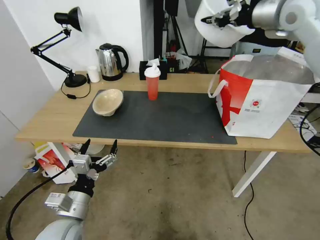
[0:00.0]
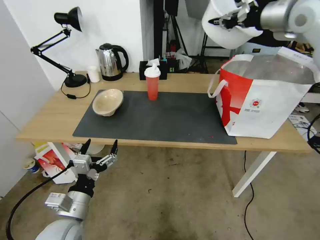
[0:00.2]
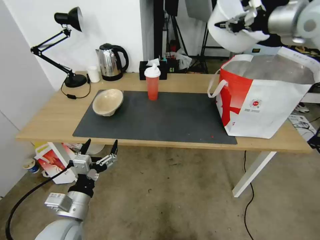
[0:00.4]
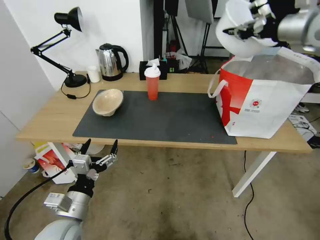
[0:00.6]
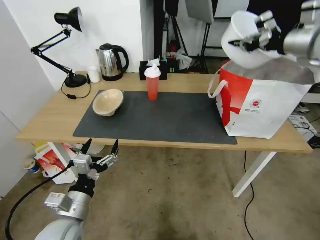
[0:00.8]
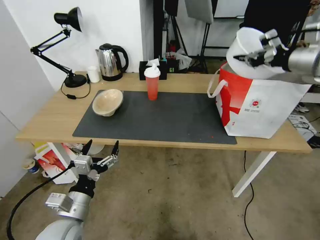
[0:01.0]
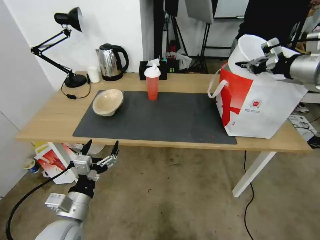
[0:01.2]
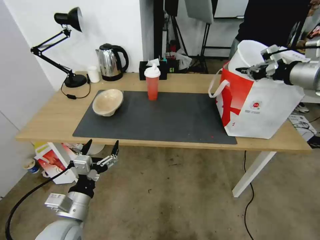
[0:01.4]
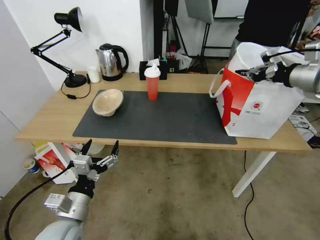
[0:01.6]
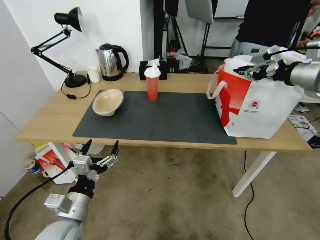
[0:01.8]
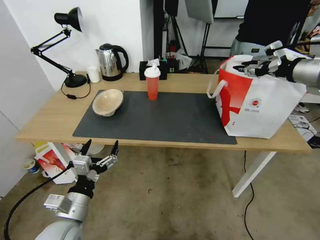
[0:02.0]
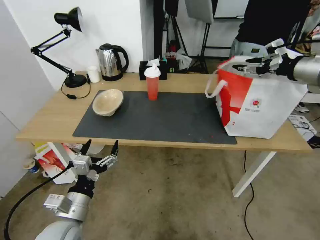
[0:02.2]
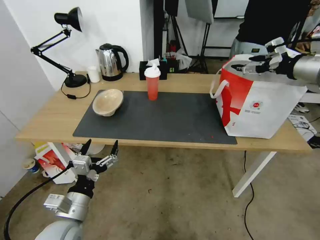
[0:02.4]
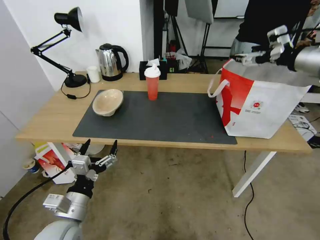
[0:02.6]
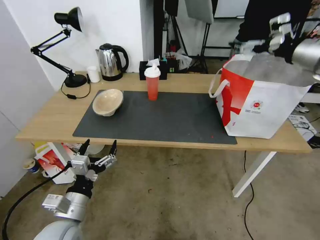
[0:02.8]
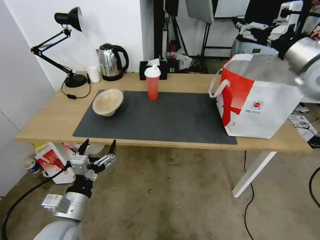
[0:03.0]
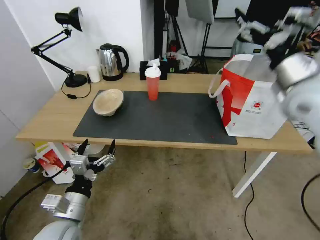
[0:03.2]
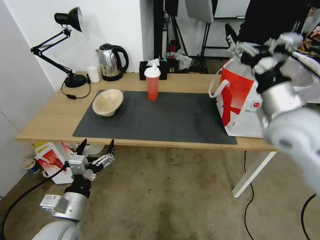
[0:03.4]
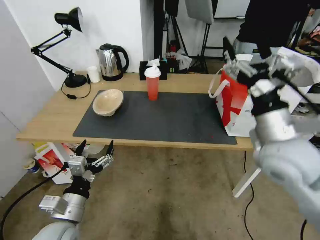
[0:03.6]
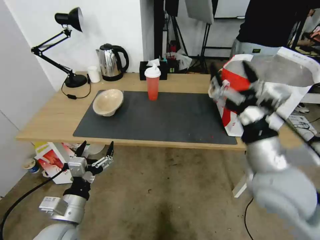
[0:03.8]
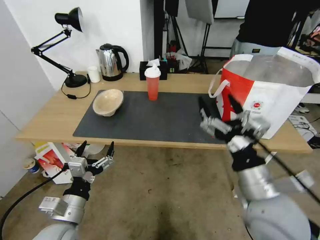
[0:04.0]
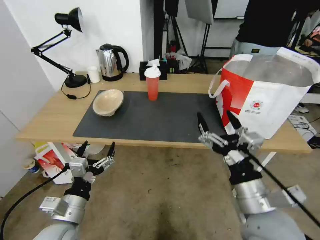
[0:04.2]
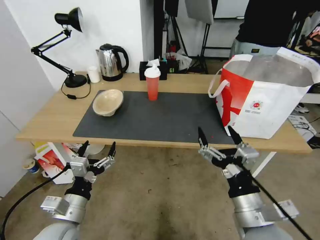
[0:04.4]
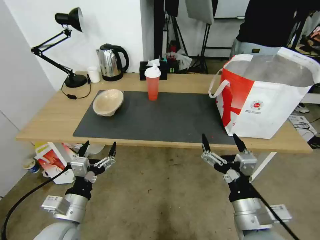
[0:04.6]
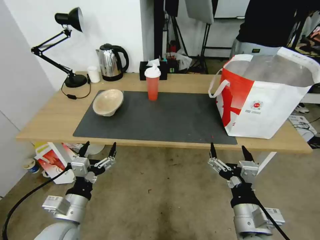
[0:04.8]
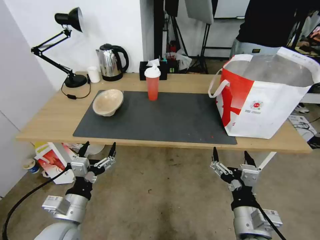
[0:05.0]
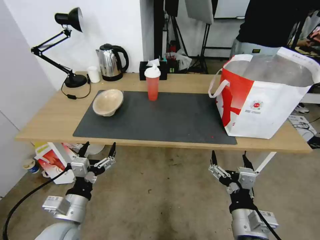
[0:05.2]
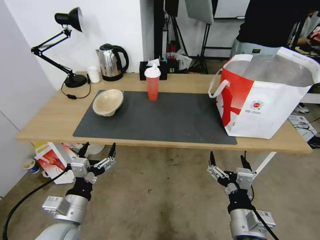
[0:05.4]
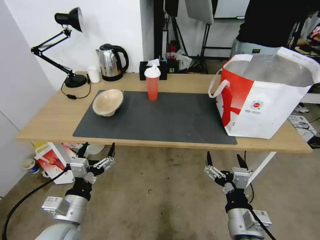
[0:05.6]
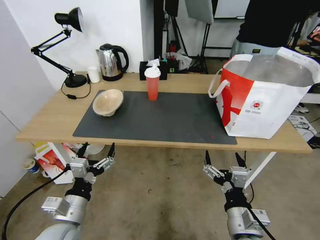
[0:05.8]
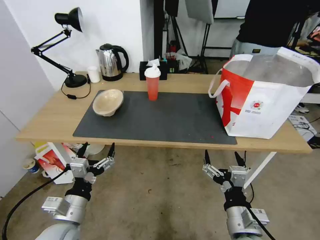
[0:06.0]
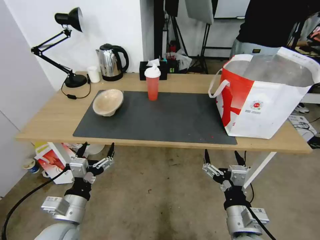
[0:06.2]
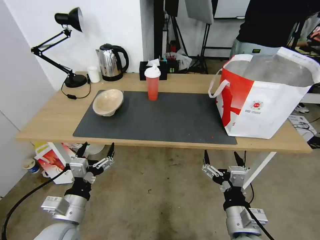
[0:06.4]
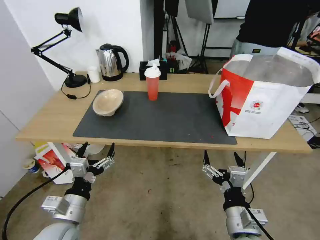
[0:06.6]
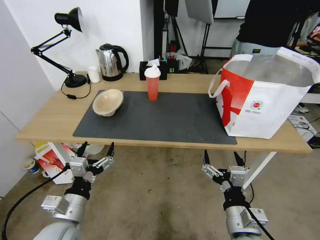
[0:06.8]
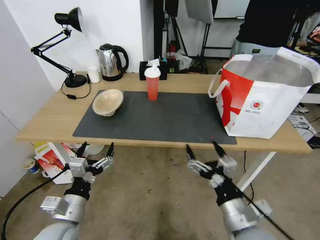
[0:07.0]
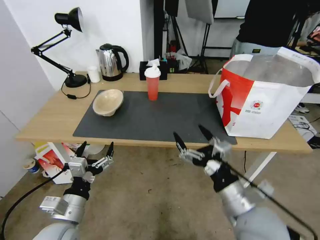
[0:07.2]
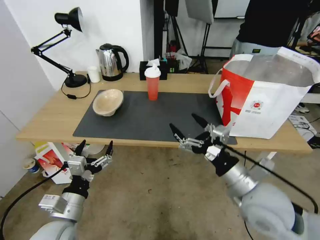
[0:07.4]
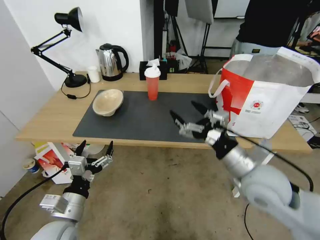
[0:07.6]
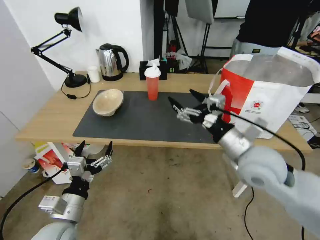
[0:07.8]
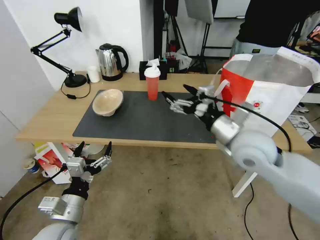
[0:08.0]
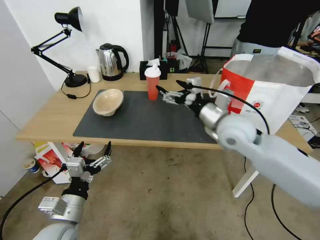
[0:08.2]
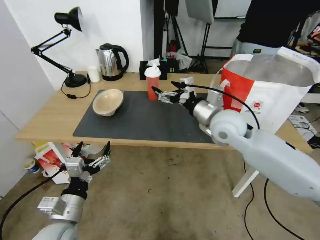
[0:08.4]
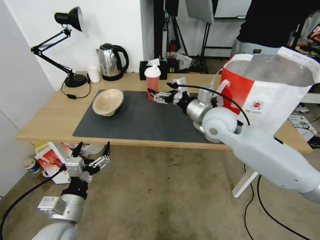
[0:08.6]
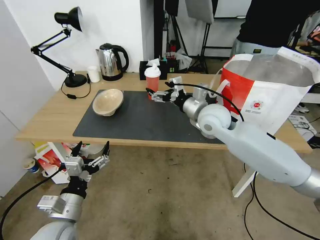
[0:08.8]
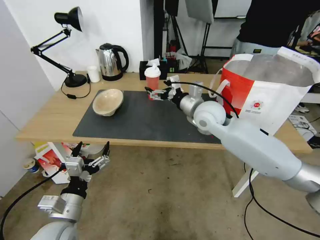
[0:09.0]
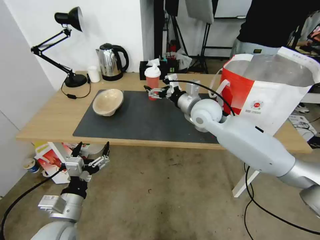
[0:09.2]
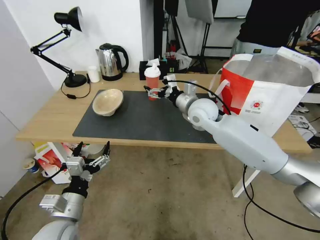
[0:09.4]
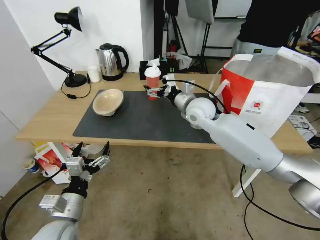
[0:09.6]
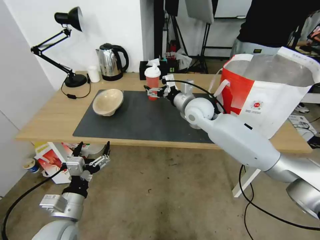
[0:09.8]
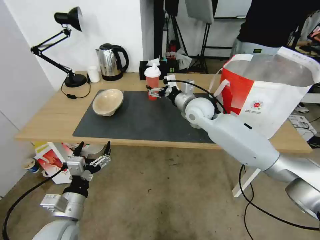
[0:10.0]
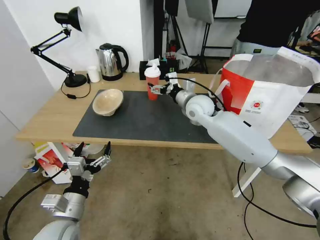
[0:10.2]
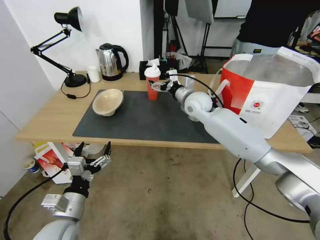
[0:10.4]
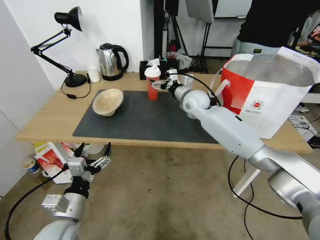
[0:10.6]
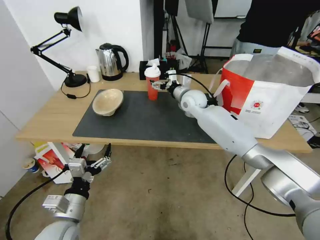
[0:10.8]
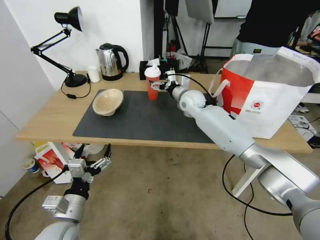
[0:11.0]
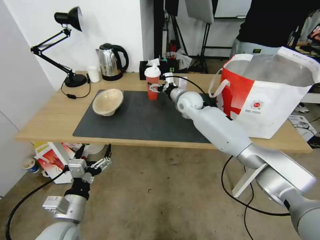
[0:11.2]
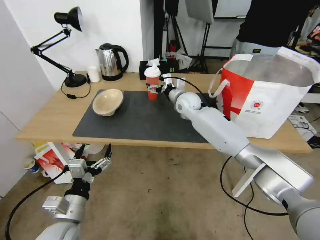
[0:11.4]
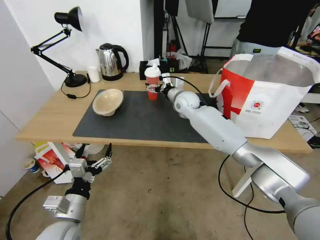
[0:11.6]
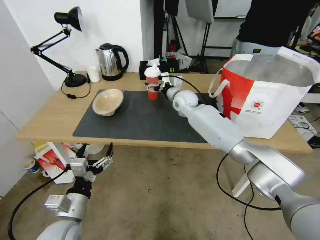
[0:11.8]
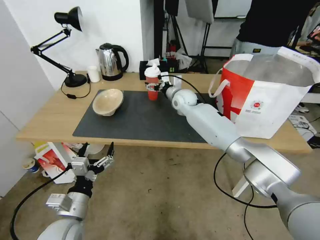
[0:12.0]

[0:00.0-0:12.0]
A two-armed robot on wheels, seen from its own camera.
Task of the whole recording: Pick up the trash from the table and place it into the takeout bag.
0:00.0 to 0:01.6: The right gripper heads downward, to the right and backward, covering some 20 cm.
0:01.6 to 0:03.0: The right gripper opens.
0:03.0 to 0:04.4: The right gripper goes some 40 cm backward, downward and to the left.
0:04.4 to 0:06.0: The right gripper travels downward by roughly 5 cm.
0:06.0 to 0:07.6: The right gripper travels forward and upward by approximately 15 cm.
0:07.6 to 0:09.0: The right gripper travels forward and to the left by roughly 20 cm.
0:09.0 to 0:10.4: The right gripper goes approximately 10 cm forward.
0:10.4 to 0:12.0: The right gripper heads forward, covering some 5 cm.

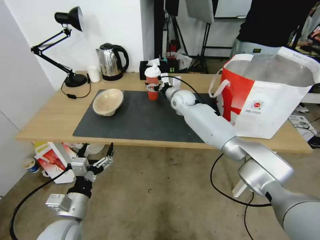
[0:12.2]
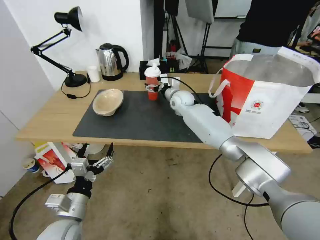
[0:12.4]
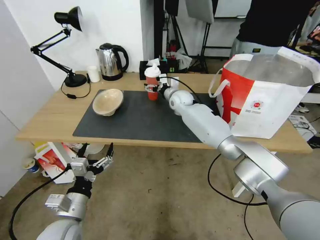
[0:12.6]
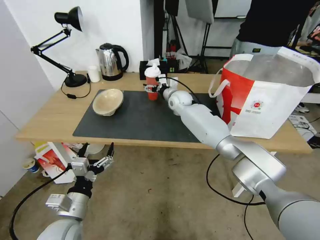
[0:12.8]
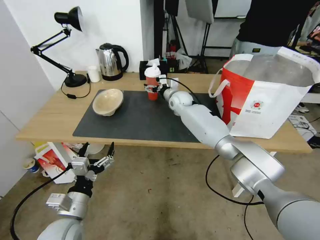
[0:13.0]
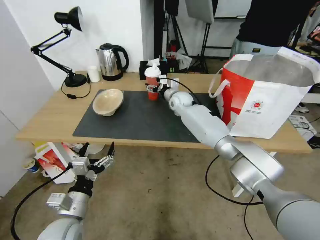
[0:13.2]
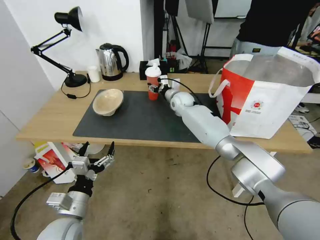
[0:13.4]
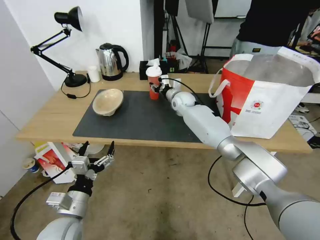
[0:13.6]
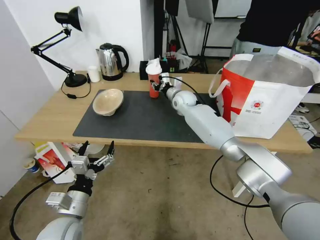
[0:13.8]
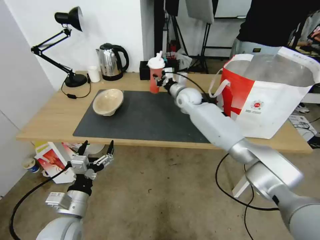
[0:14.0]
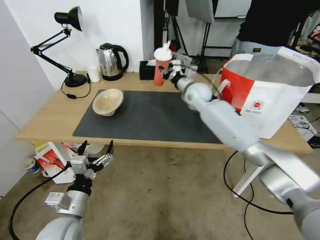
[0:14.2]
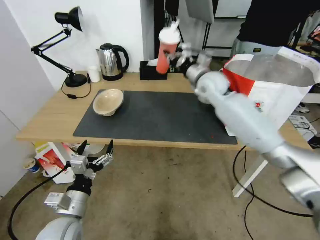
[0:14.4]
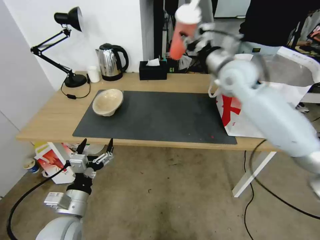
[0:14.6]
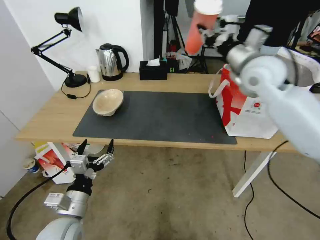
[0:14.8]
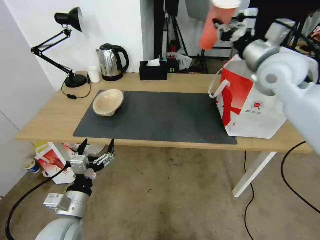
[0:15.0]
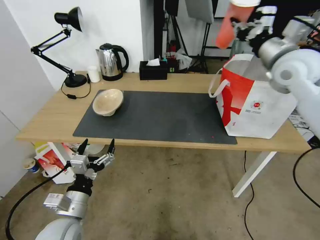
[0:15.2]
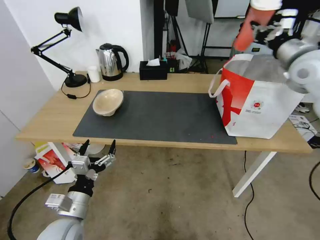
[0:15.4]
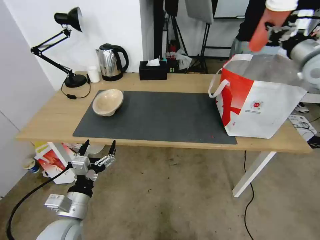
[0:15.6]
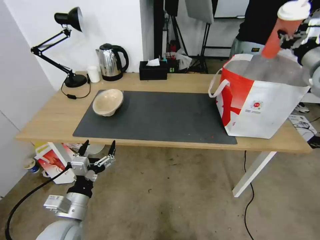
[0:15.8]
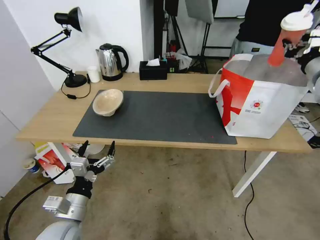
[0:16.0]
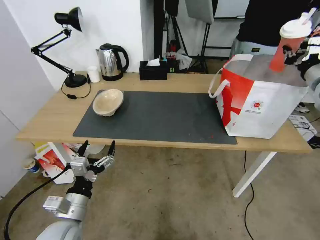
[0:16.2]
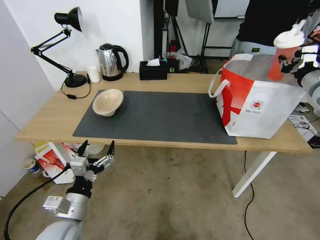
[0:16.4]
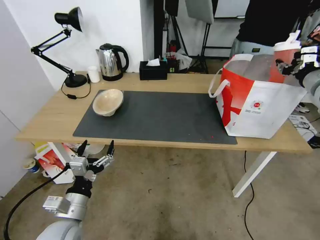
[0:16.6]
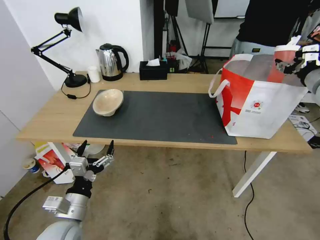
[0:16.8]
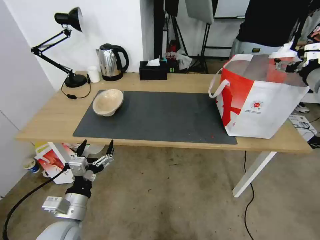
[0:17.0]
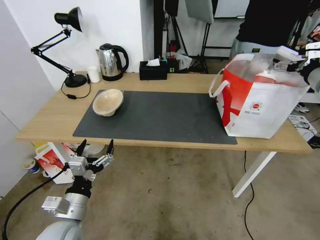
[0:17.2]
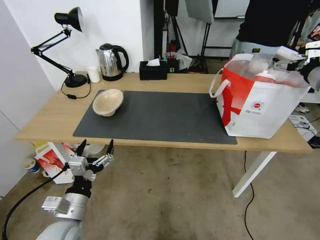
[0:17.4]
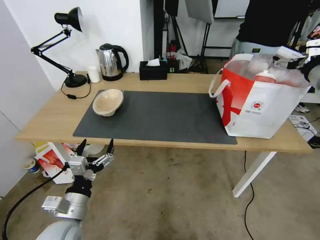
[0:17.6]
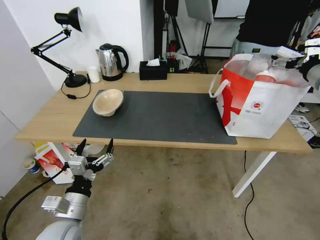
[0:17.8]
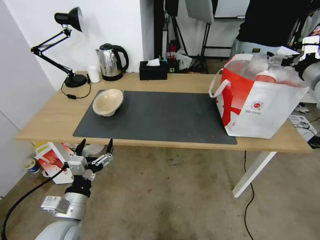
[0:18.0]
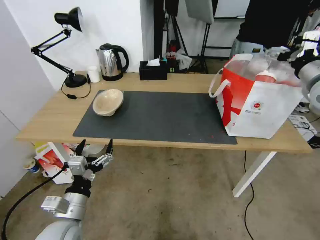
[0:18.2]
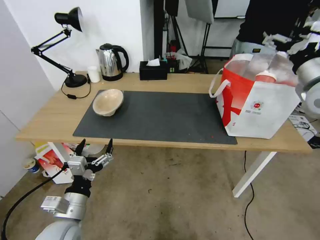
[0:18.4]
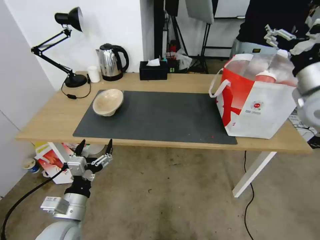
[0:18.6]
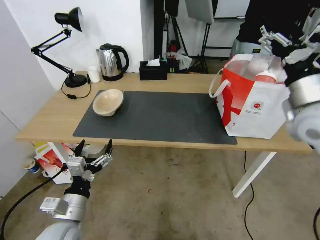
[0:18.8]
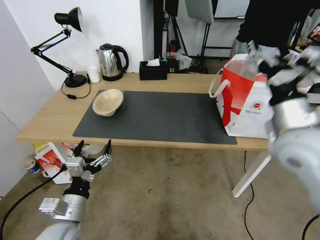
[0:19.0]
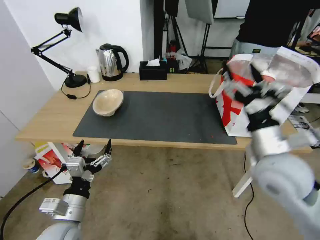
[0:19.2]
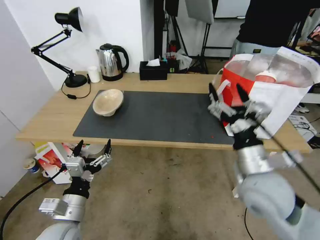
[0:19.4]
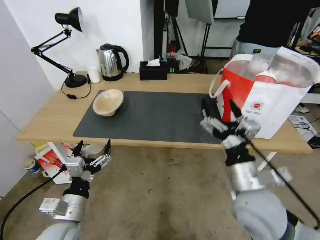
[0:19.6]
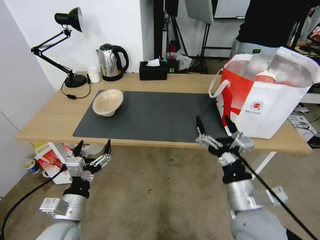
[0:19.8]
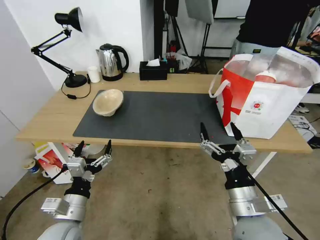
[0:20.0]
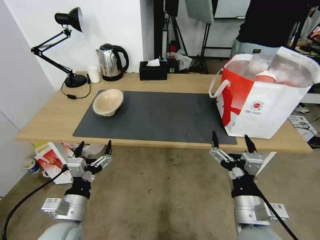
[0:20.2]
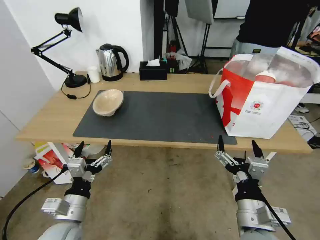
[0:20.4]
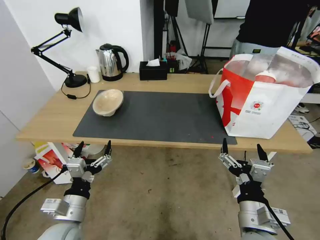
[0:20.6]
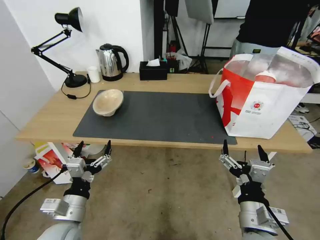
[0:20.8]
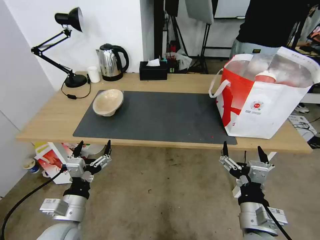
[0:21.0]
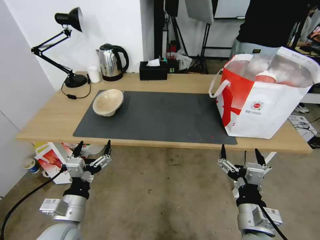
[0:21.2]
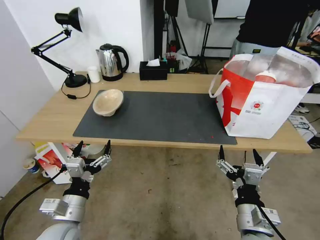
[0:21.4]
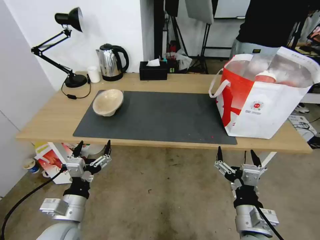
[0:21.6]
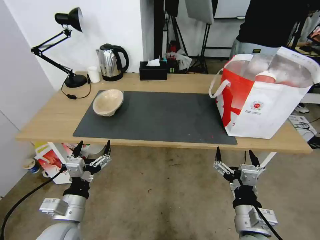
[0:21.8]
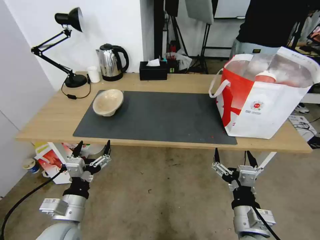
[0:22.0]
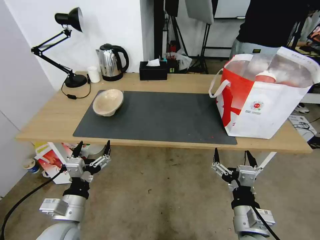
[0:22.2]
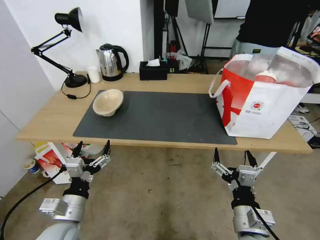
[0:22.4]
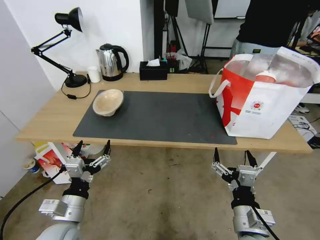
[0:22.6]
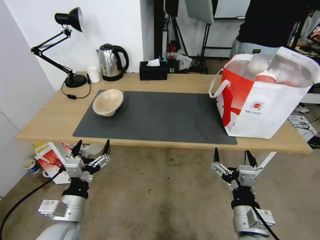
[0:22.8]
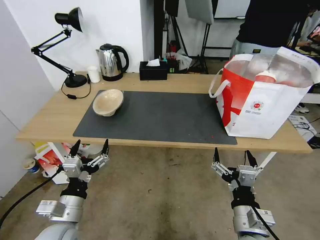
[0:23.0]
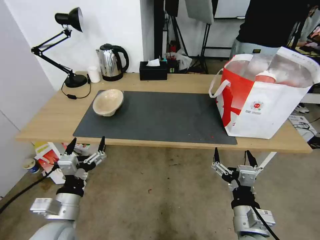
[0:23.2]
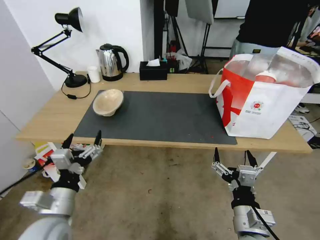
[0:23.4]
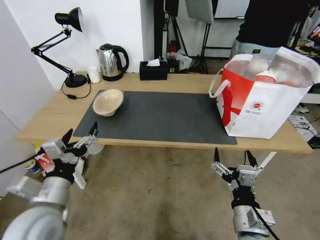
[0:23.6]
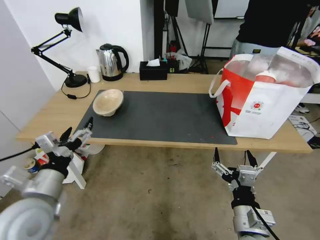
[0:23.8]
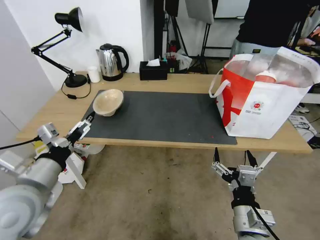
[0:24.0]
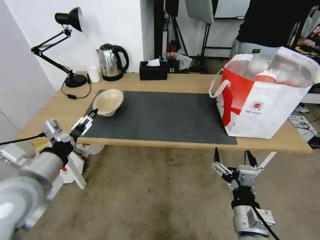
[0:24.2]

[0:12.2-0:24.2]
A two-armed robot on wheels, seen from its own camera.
Task of the whole recording: Pick up the trash from the table and place it into the takeout bag.
0:12.2 to 0:13.8: The right gripper closes up.
0:13.8 to 0:15.2: The right gripper is displaced to the right, upward and backward by roughly 35 cm.
0:15.2 to 0:16.6: The right gripper is displaced to the right and downward by about 10 cm.
0:16.6 to 0:18.2: The right gripper opens up.
0:18.2 to 0:19.8: The right gripper heads backward, to the left and downward, covering roughly 40 cm.
0:19.8 to 0:21.2: The right gripper shifts by some 5 cm.
0:21.2 to 0:22.6: The two grippers keep their place.
0:22.6 to 0:24.2: The left gripper heads upward, covering some 15 cm.
